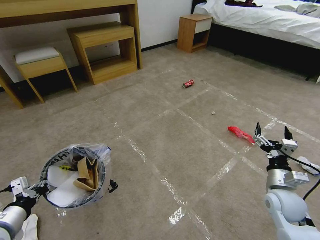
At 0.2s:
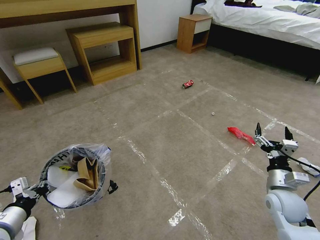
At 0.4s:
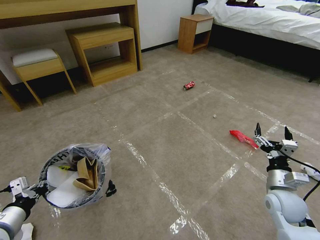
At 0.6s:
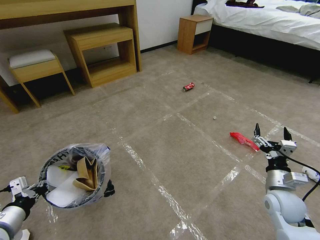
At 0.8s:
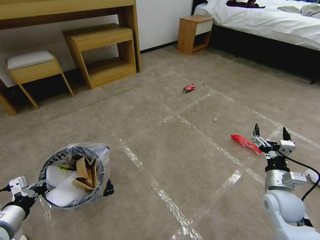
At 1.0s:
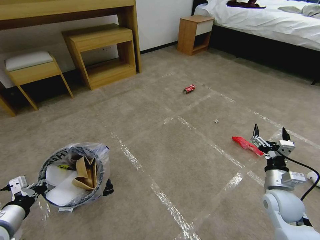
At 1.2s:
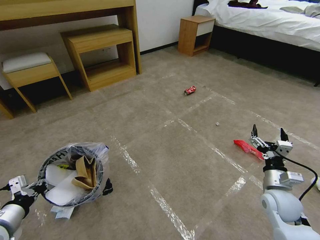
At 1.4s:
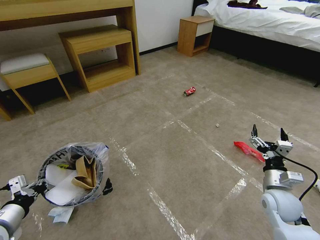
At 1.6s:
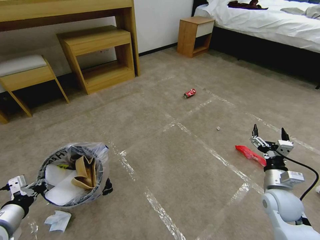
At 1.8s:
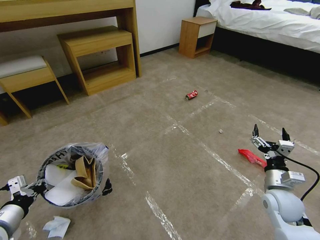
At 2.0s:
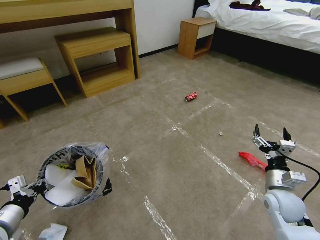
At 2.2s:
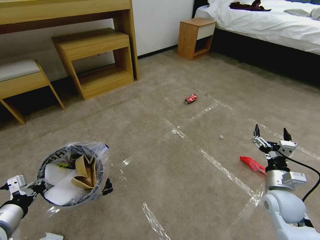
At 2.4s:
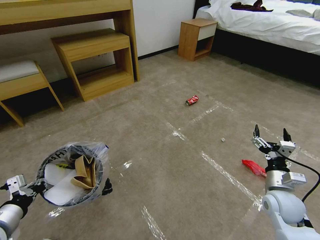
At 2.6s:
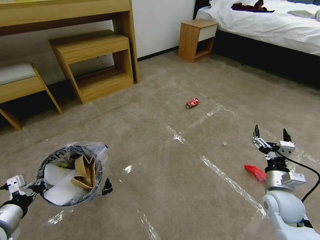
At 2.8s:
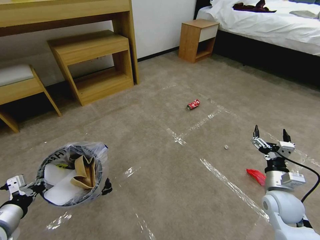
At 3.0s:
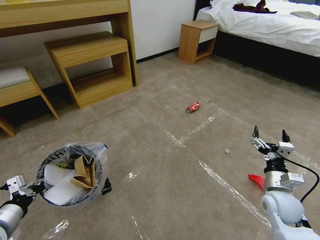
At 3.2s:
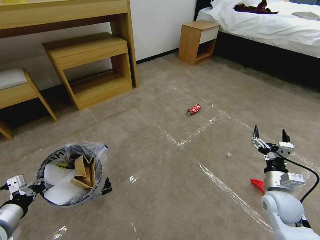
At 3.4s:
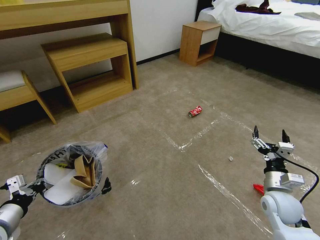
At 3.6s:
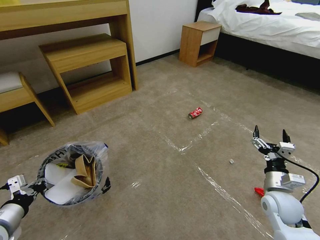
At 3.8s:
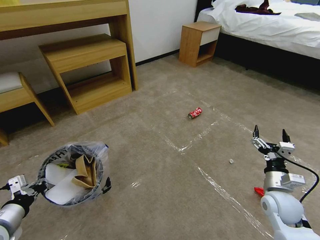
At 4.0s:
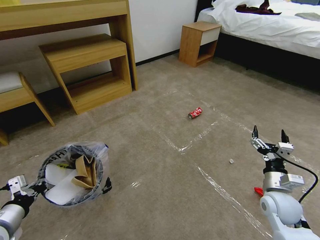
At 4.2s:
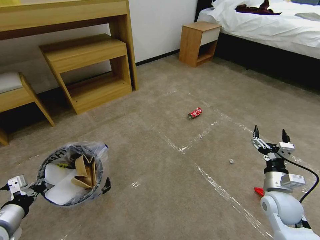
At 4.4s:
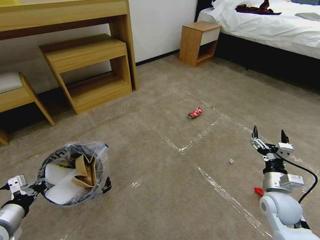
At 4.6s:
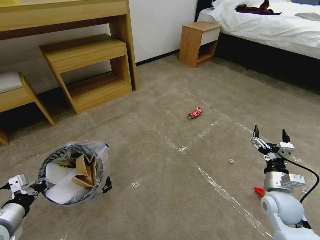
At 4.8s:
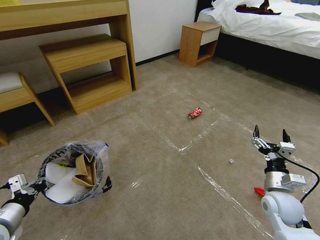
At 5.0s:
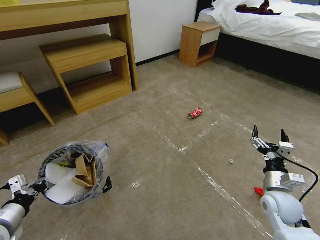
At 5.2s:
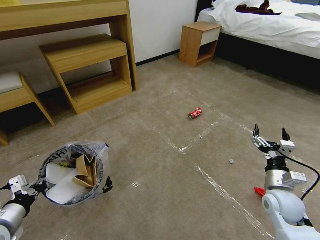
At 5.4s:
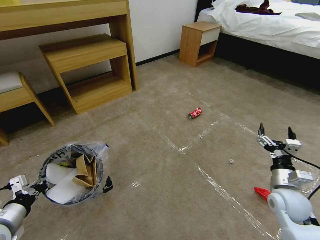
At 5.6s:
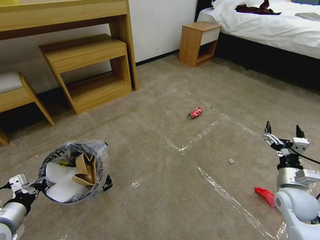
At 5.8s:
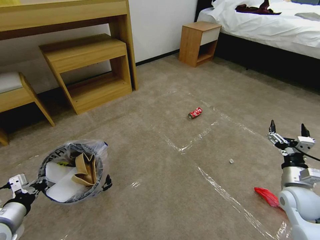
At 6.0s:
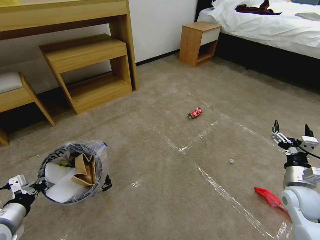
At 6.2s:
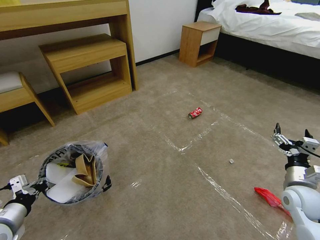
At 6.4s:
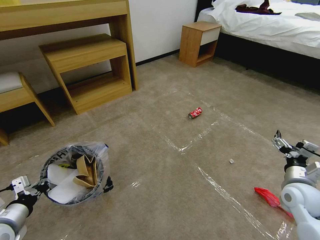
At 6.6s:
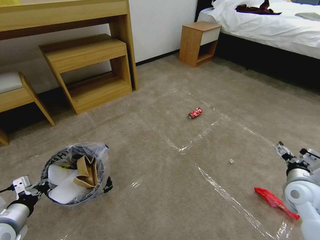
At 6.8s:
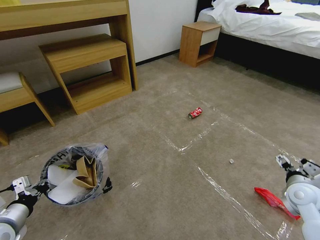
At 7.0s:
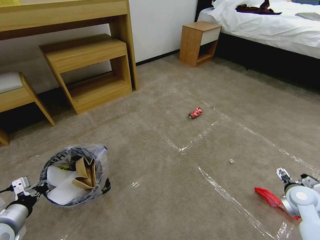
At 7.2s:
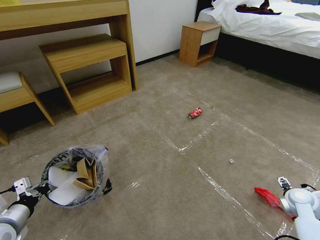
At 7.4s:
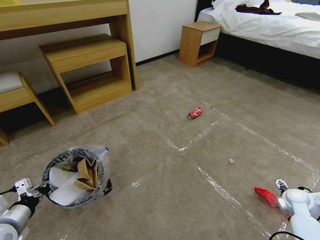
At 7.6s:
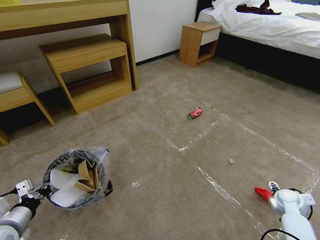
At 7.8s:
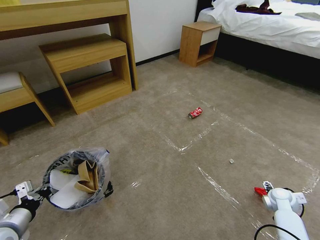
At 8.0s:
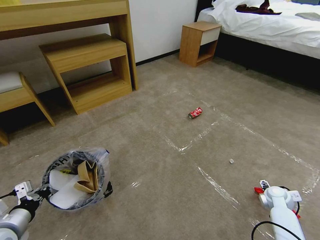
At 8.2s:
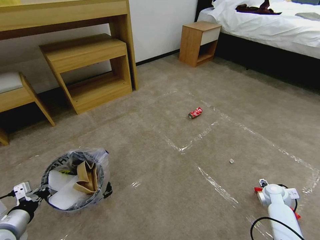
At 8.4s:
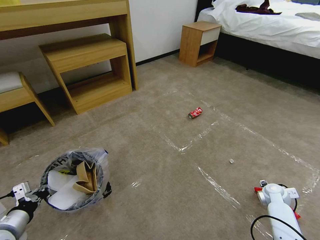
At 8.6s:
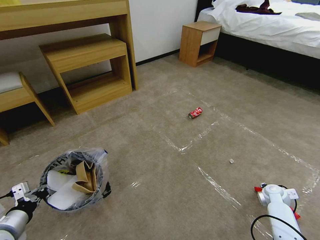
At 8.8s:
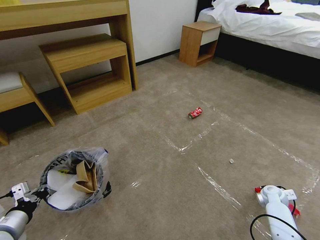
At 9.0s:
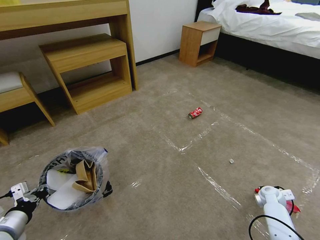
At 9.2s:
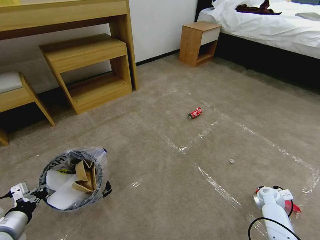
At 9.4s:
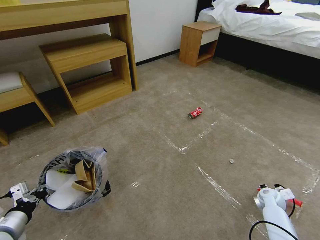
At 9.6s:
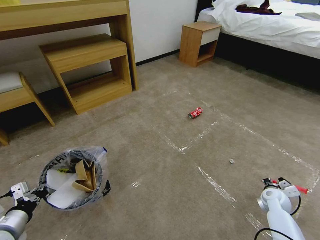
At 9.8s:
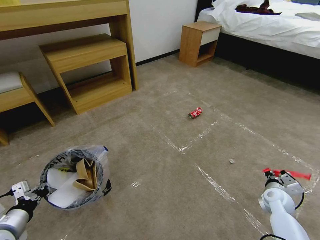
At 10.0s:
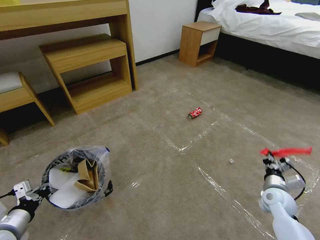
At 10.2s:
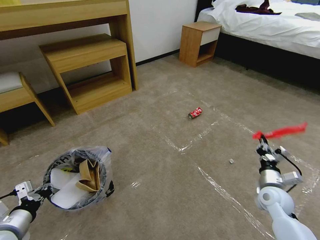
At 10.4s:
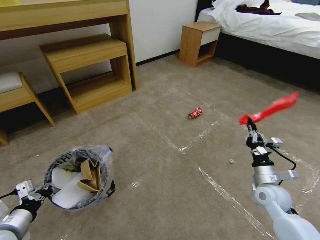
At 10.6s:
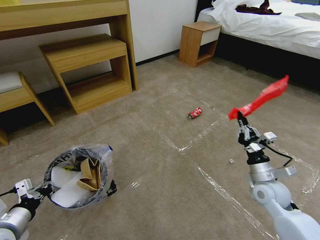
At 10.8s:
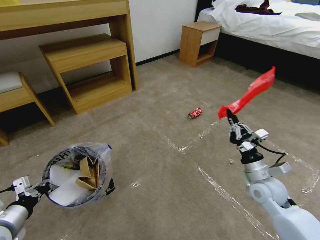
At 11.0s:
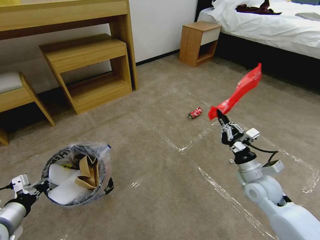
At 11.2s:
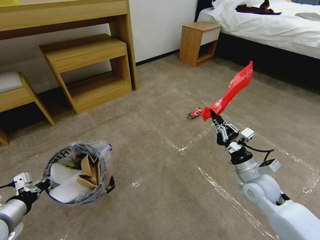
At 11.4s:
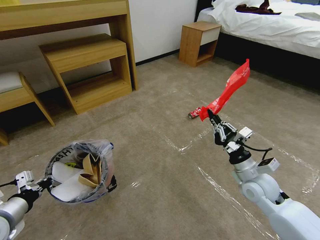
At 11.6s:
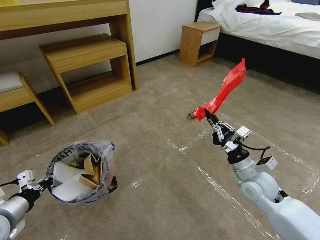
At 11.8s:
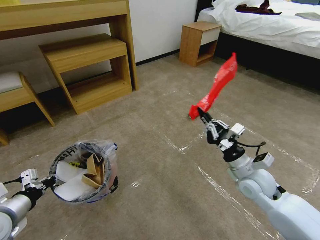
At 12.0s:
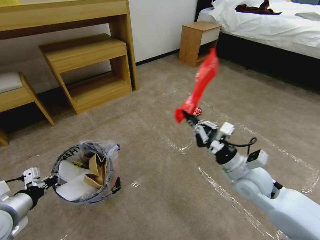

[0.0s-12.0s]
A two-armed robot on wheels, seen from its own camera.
Task of the whole recording: Pick up the trash bin and place the garbage on the floor into it.
3.0s to 4.4s: Both grippers stay put.
4.4s to 6.0s: The right gripper heads to the right, covering about 5 cm.
6.0s to 7.6s: The right gripper is displaced downward and to the right by some 10 cm.
7.6s to 9.0s: The right gripper moves downward, roughly 5 cm, and closes.
9.0s to 10.4s: The right gripper goes roughly 15 cm upward and to the left.
10.4s to 12.0s: The right gripper moves to the left and upward, approximately 15 cm. Meanwhile the left gripper moves approximately 5 cm.

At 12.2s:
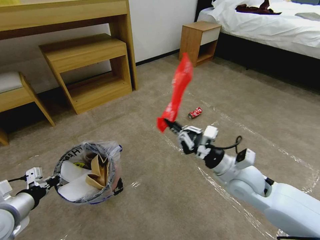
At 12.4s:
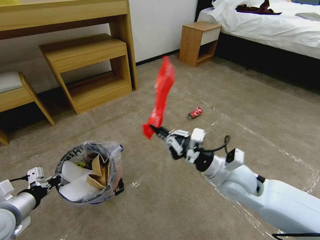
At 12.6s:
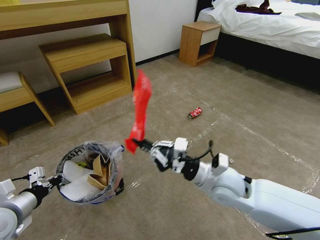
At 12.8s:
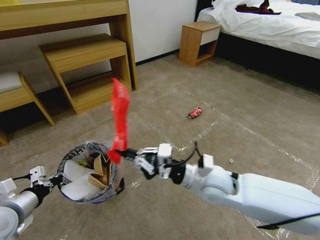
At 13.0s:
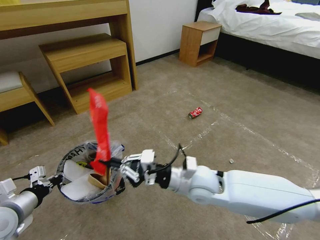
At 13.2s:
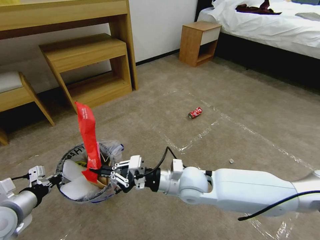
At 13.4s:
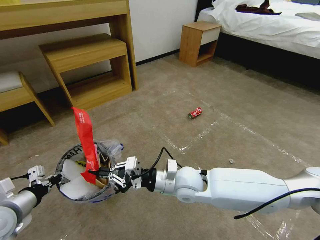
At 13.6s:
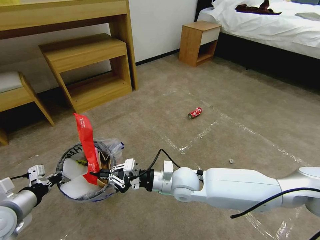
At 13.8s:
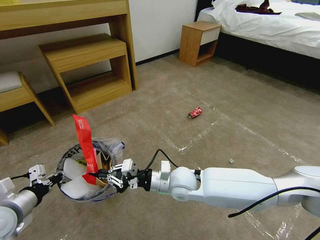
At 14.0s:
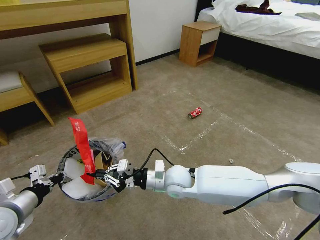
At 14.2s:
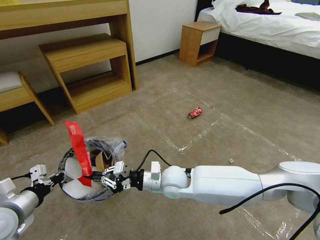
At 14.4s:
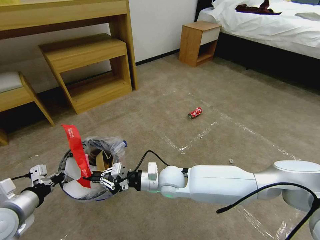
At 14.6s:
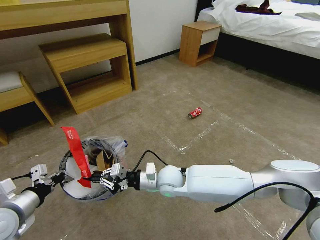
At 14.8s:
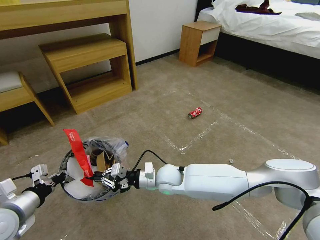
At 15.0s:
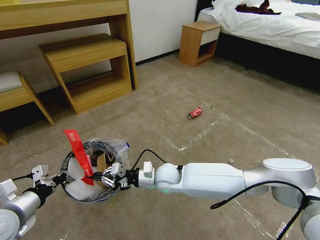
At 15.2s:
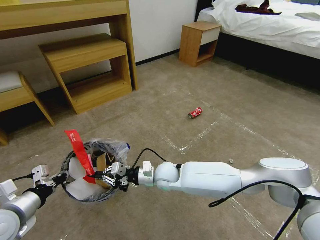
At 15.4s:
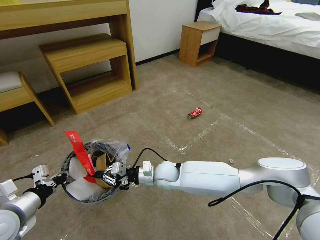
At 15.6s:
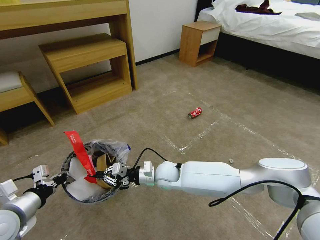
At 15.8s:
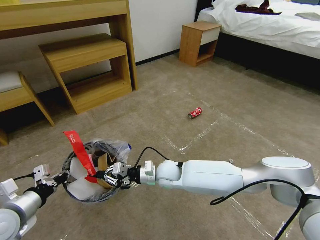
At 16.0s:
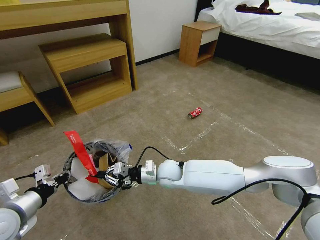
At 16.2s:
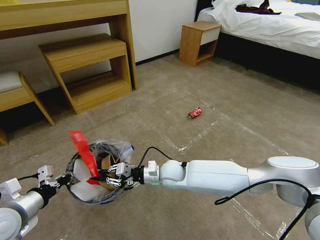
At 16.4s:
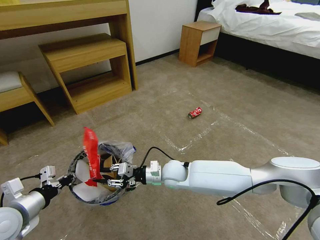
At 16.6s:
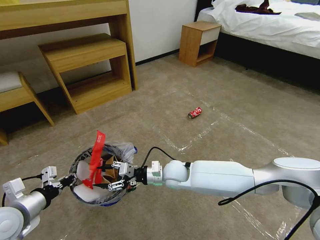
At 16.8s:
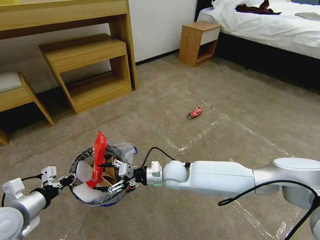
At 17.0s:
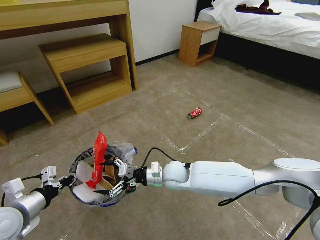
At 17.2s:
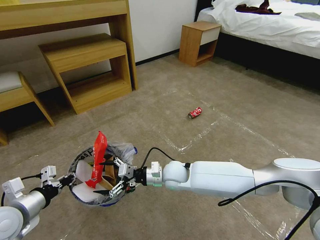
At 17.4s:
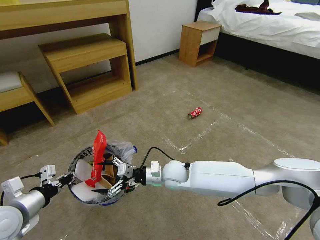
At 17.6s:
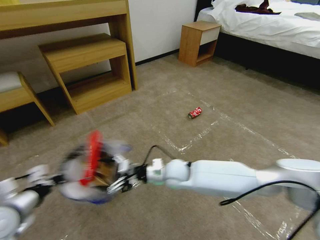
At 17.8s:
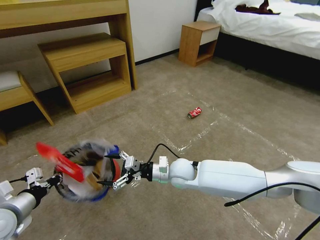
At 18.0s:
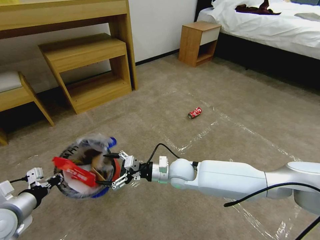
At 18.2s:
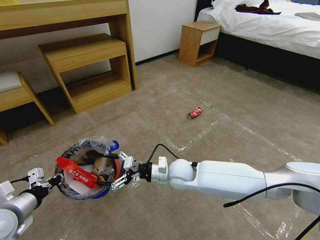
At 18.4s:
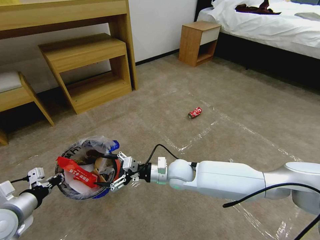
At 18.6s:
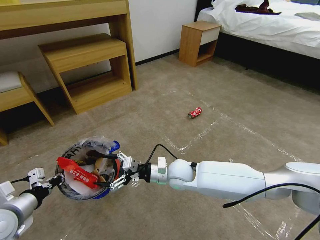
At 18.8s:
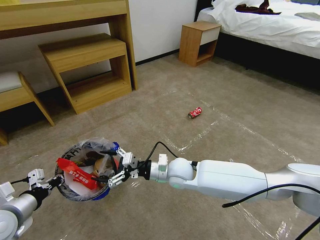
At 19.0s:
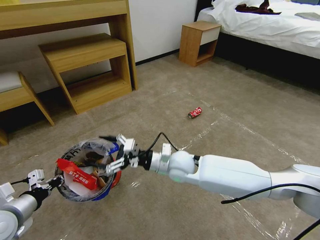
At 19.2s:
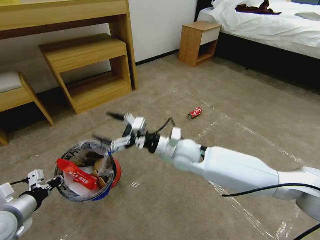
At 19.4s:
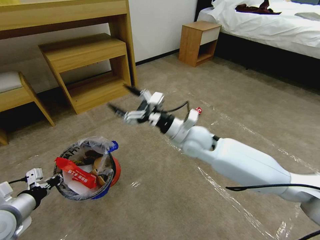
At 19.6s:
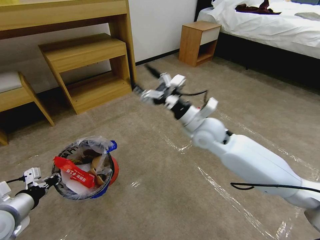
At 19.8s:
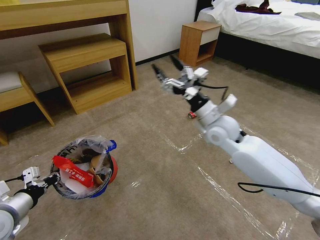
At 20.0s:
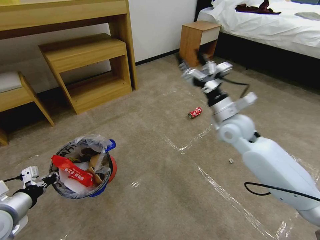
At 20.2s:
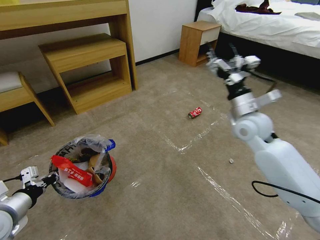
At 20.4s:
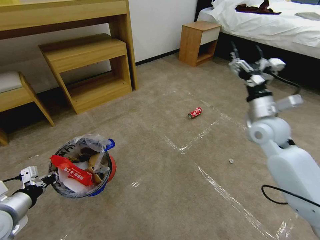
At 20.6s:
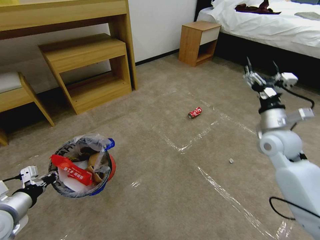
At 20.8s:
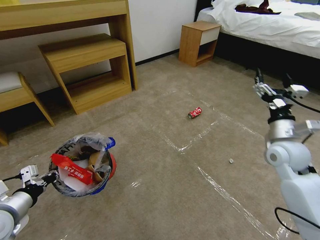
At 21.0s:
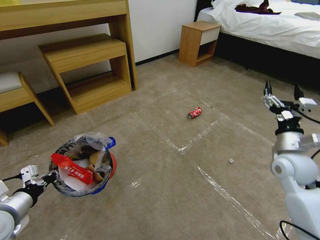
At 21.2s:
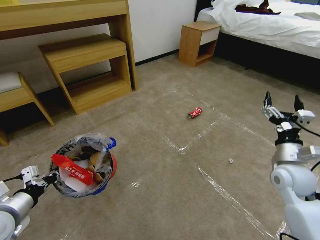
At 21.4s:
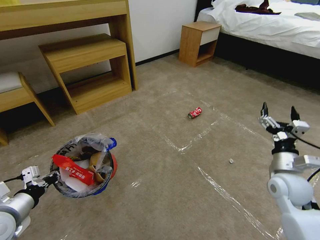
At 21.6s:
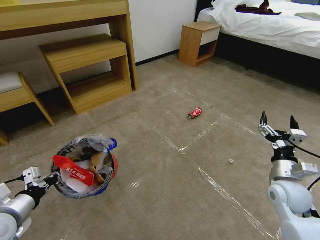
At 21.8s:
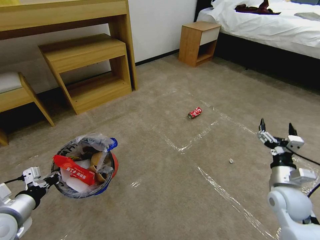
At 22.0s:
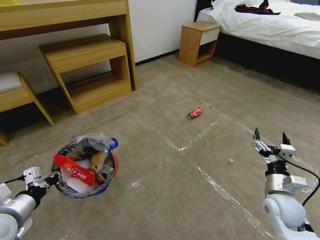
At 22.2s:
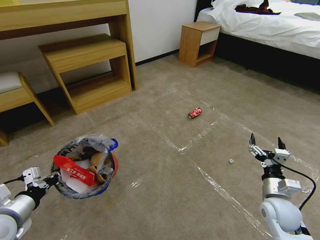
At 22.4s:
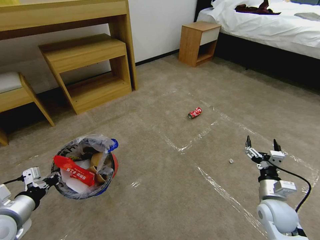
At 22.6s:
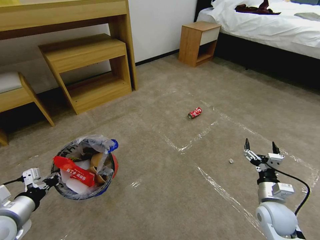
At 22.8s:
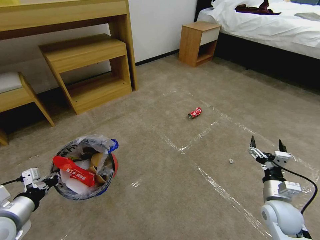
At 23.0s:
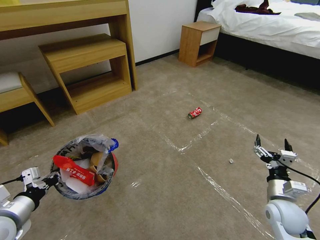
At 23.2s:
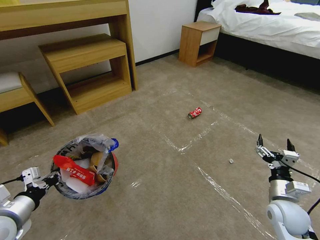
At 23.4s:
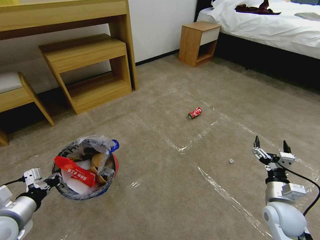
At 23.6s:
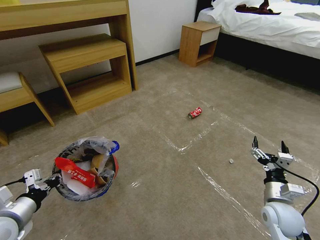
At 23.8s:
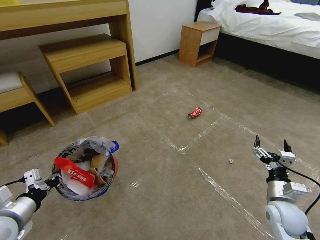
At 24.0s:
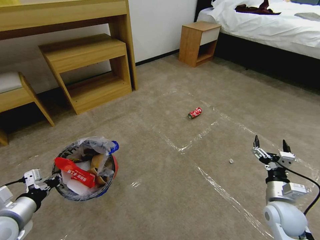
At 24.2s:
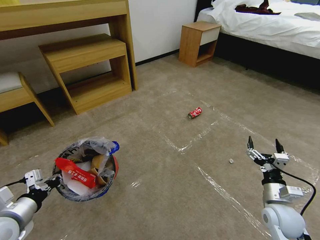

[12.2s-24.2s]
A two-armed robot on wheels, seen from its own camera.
Task of the whole recording: Pick up the trash bin and place the garbage on the floor into it.
12.2s to 13.8s: The right gripper goes roughly 15 cm to the left.
13.8s to 15.2s: The right gripper goes approximately 10 cm downward and forward.
15.2s to 16.6s: The right gripper opens.
16.6s to 18.2s: The right gripper opens.
18.2s to 19.8s: The right gripper shifts approximately 20 cm upward, to the right and forward.
19.8s to 21.2s: The right gripper is displaced to the right, backward and downward by roughly 25 cm.
21.2s to 22.6s: The right gripper shifts approximately 15 cm downward and backward.
22.6s to 24.2s: There are only small adjustments of the grippers.
